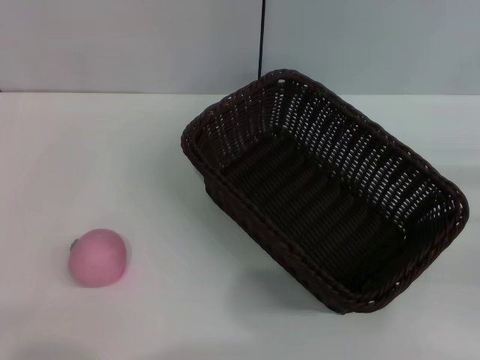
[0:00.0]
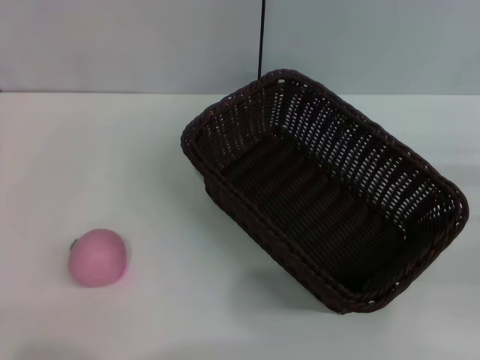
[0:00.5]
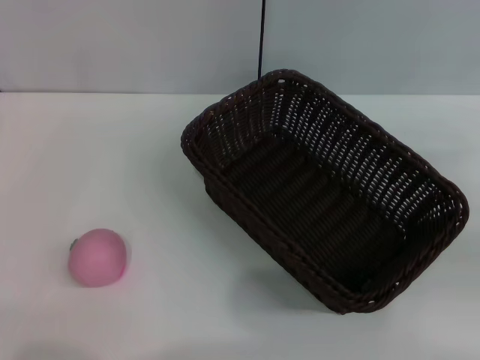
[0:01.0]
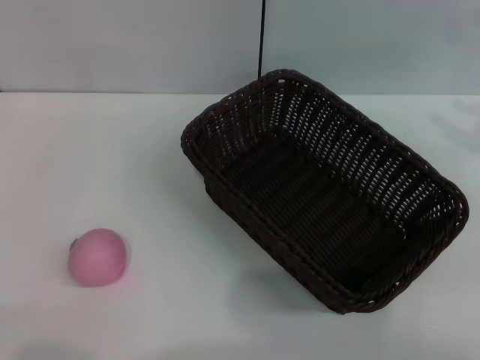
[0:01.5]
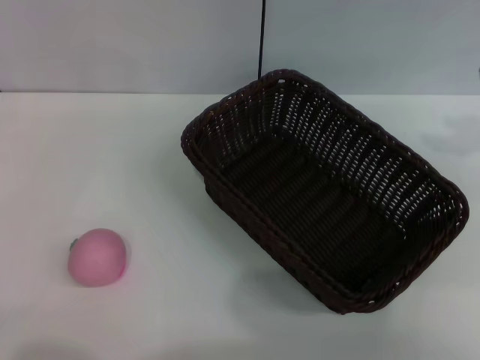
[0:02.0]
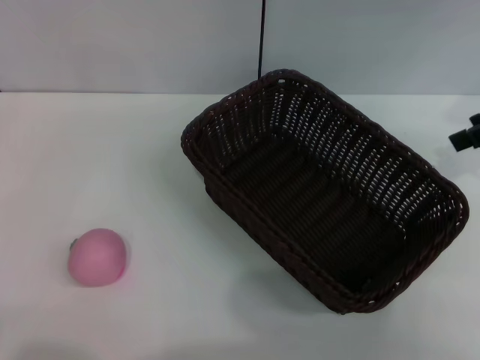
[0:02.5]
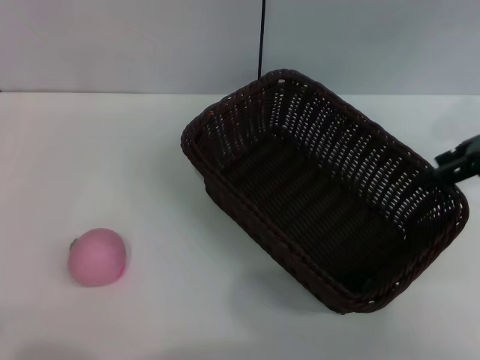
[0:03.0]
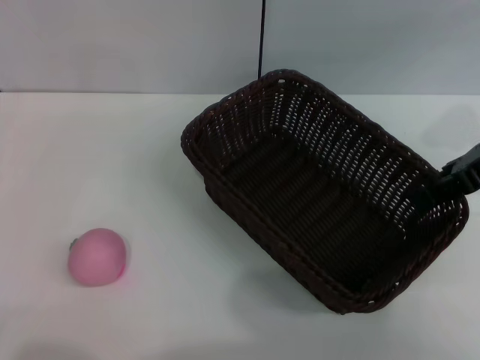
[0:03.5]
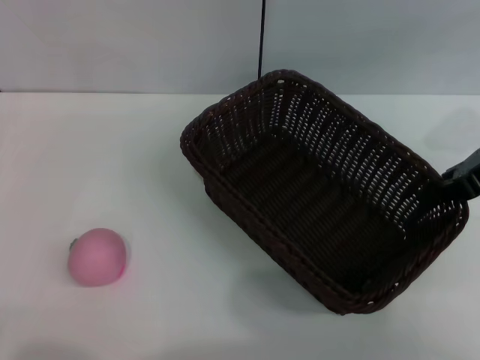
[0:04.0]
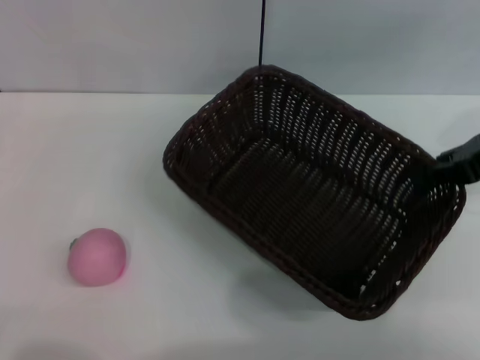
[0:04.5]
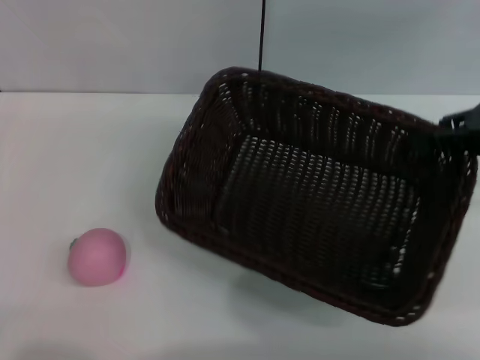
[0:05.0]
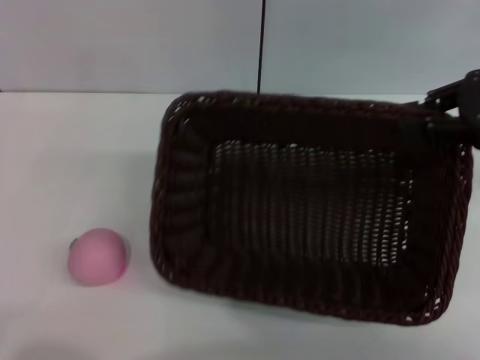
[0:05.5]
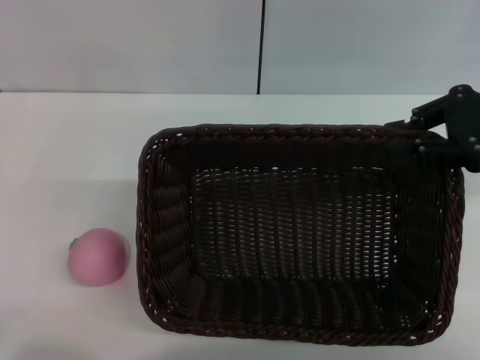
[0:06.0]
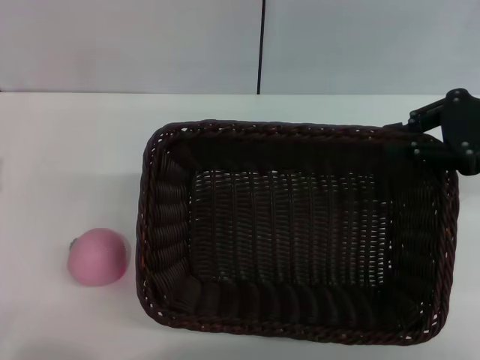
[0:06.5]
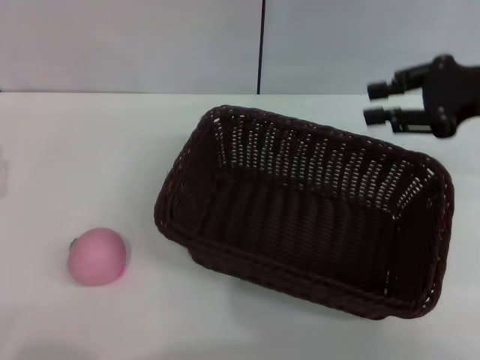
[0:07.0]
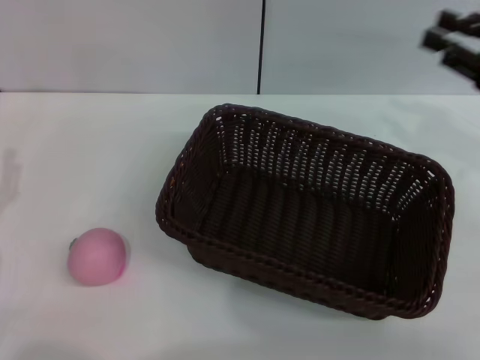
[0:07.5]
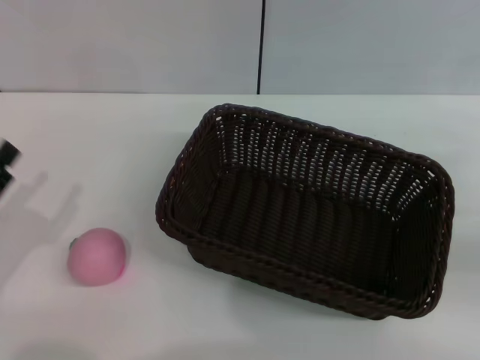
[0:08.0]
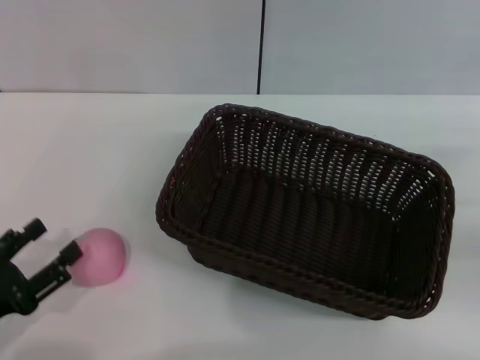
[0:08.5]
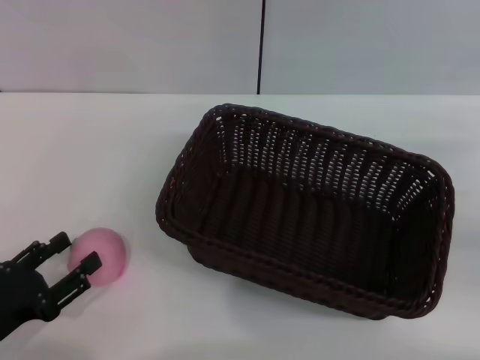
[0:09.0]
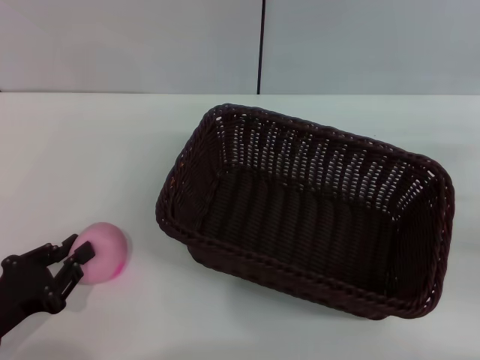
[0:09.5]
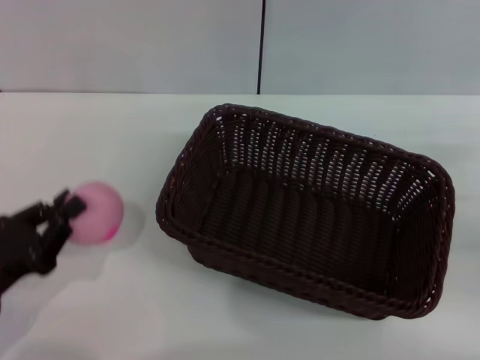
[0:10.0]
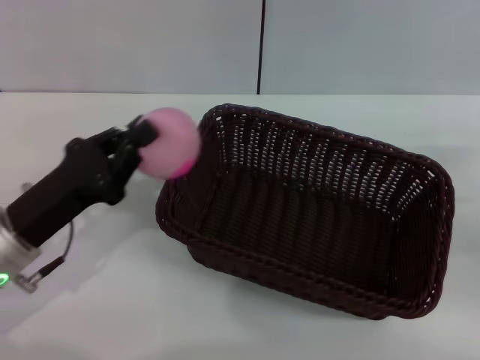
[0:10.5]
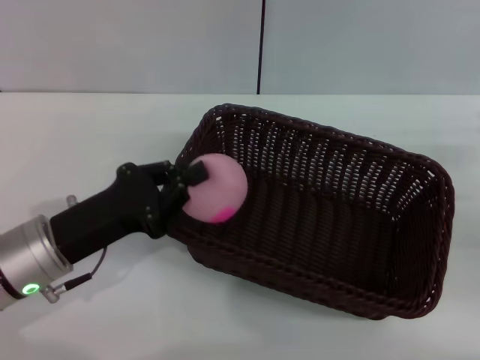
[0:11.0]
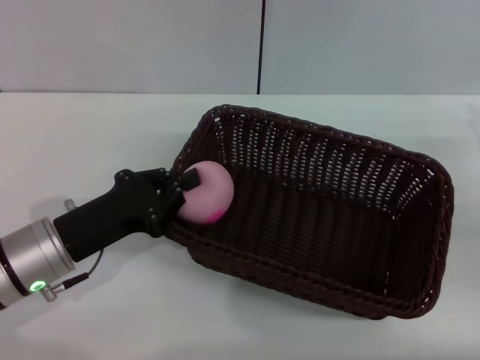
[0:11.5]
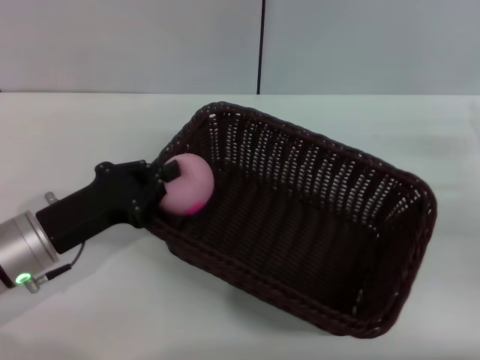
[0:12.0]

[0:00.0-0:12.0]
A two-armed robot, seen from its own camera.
Step, 0:00.0 to 0:04.5: Pick up the dark basket with the right gripper.
Step, 0:05.0 to 0:07.0: Place the dark basket in the center of view with the right gripper.
Step, 0:07.5 to 0:10.0: Pick up the peach with the left gripper.
0:00.0 to 0:02.0: The right gripper moves upward and forward, some 25 cm, and opens its fingers.
0:02.0 to 0:04.0: The right gripper travels downward and to the left by some 10 cm, and closes.
0:06.0 to 0:08.0: The right gripper is displaced downward, backward and to the right by about 15 cm, and opens its fingers.
0:08.0 to 0:10.0: The left gripper closes up.
0:10.0 to 0:12.0: The left gripper shifts some 10 cm forward and to the right.

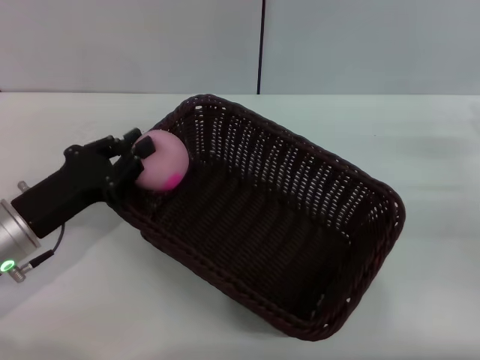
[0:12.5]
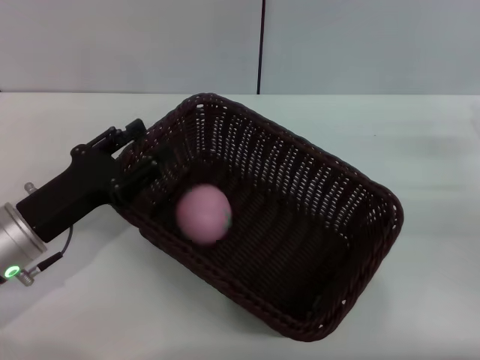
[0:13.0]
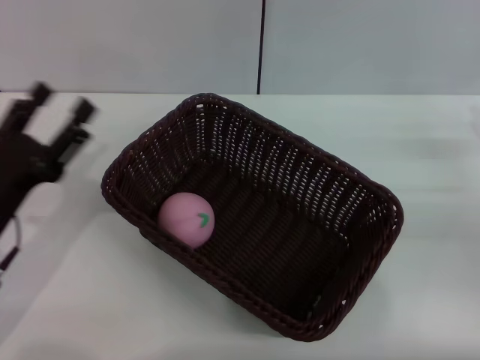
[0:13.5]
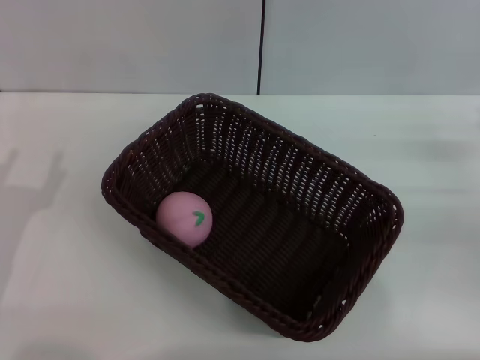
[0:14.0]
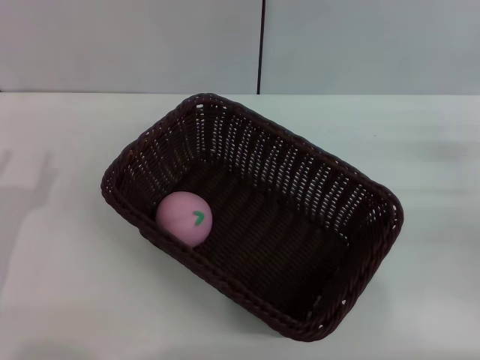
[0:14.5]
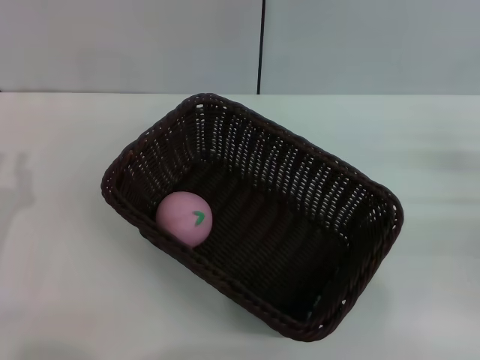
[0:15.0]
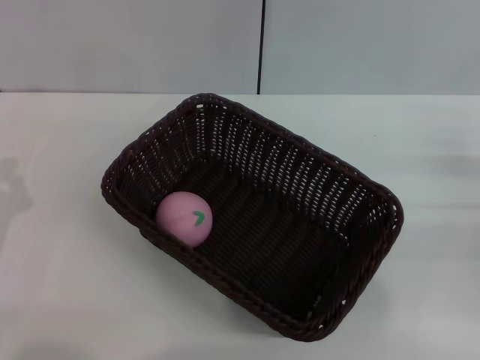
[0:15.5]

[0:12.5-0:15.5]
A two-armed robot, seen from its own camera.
0:12.5 to 0:14.0: The left gripper moves backward, approximately 5 cm, and opens.
